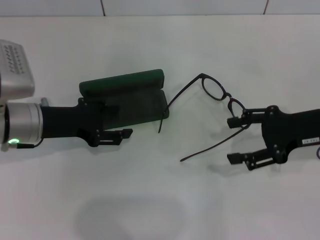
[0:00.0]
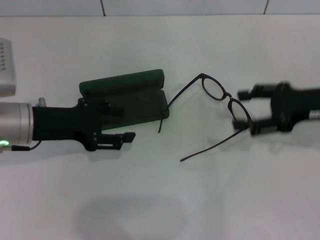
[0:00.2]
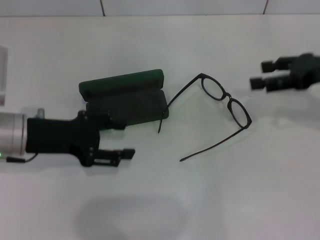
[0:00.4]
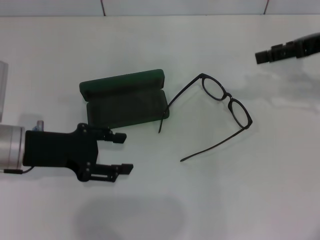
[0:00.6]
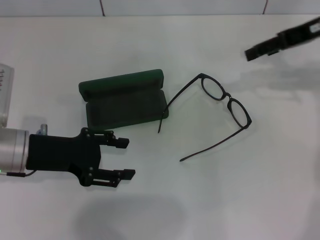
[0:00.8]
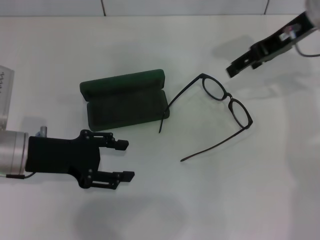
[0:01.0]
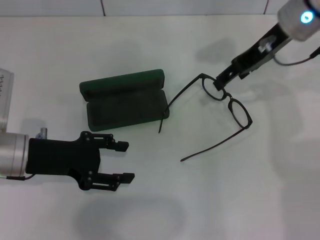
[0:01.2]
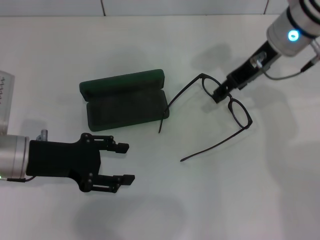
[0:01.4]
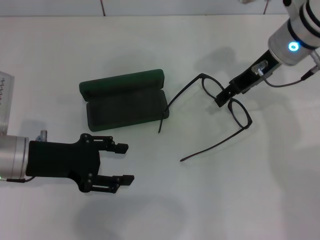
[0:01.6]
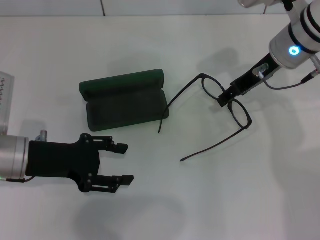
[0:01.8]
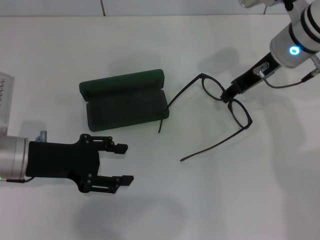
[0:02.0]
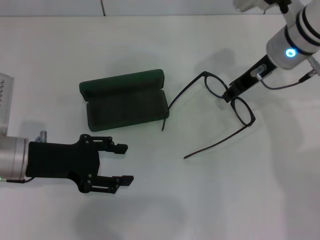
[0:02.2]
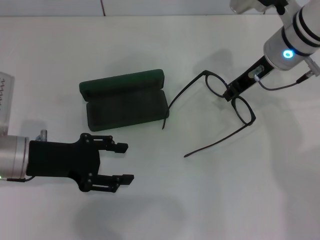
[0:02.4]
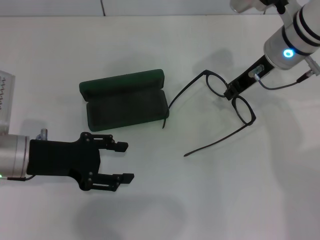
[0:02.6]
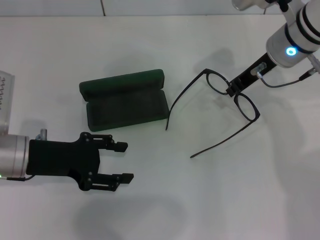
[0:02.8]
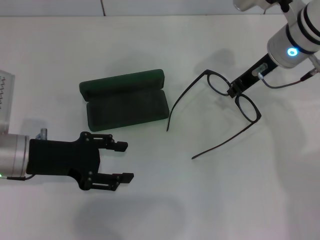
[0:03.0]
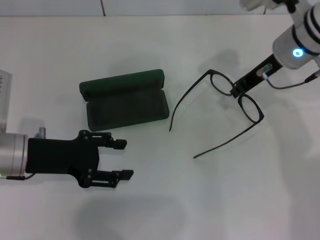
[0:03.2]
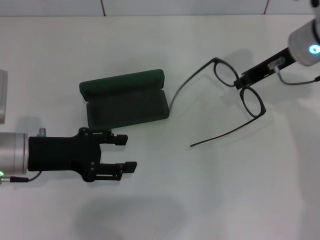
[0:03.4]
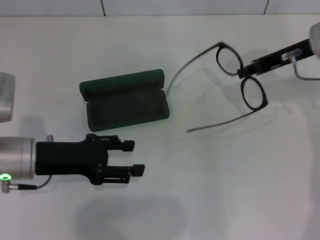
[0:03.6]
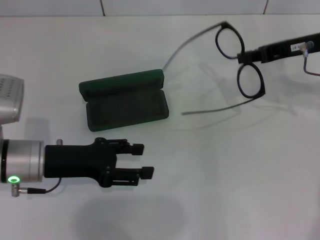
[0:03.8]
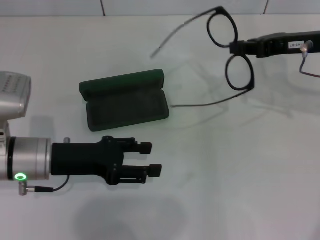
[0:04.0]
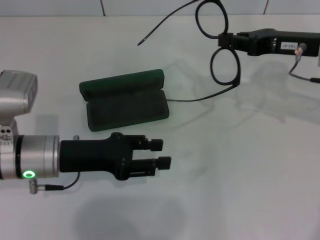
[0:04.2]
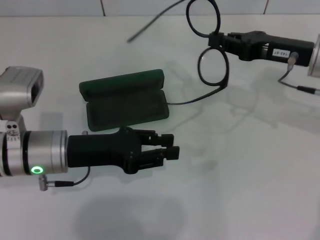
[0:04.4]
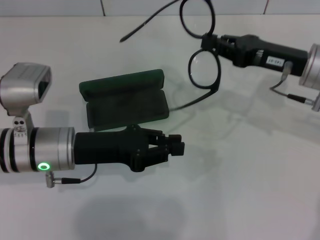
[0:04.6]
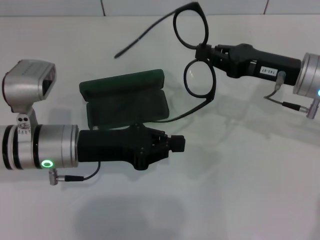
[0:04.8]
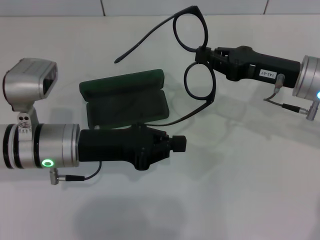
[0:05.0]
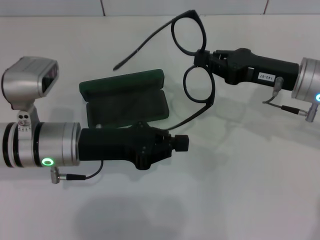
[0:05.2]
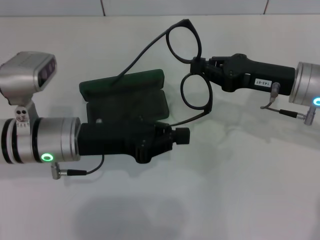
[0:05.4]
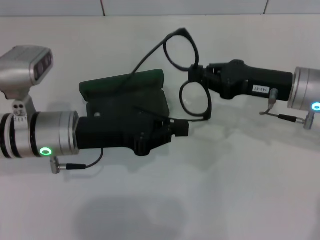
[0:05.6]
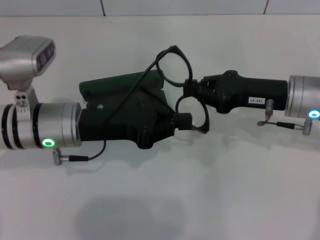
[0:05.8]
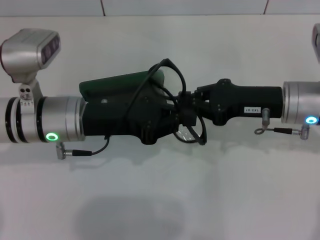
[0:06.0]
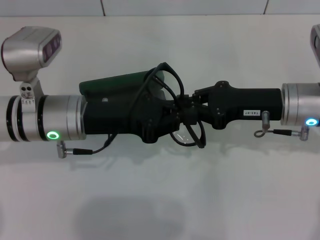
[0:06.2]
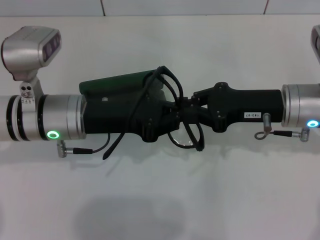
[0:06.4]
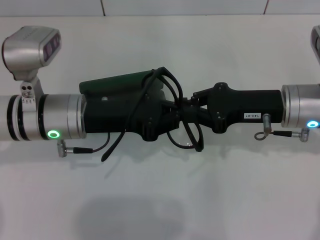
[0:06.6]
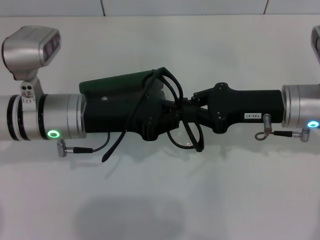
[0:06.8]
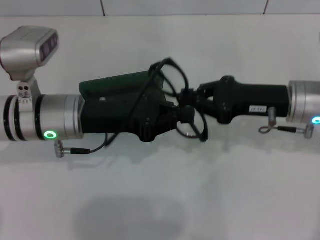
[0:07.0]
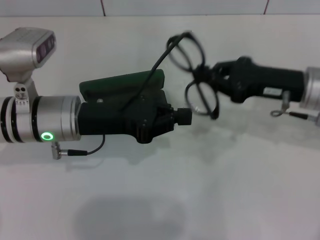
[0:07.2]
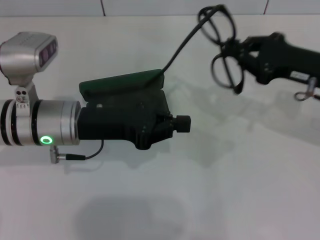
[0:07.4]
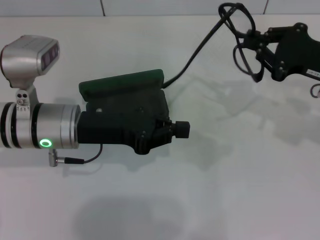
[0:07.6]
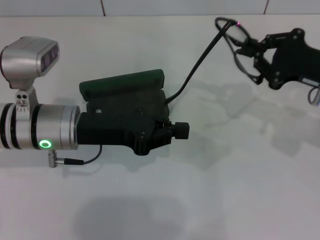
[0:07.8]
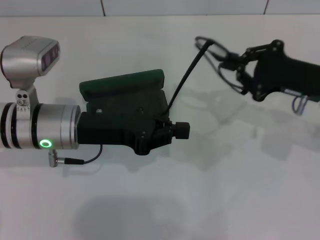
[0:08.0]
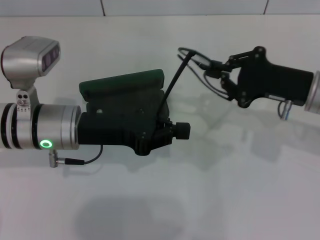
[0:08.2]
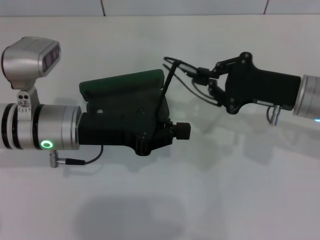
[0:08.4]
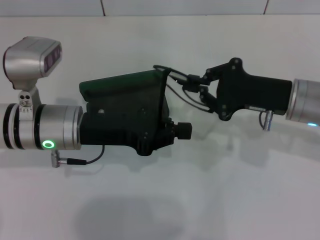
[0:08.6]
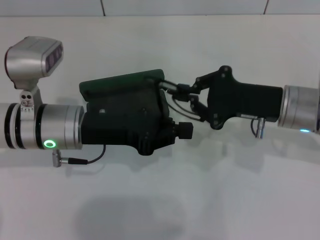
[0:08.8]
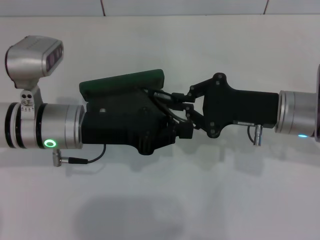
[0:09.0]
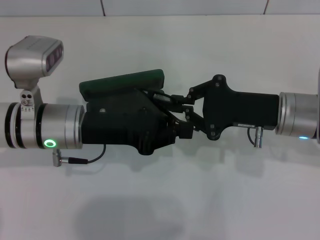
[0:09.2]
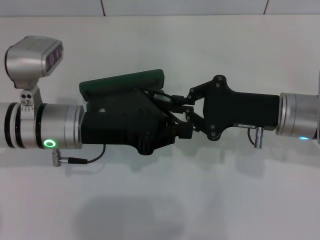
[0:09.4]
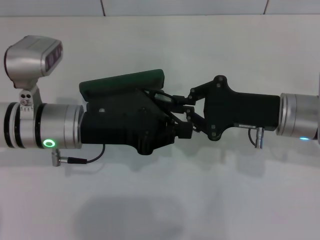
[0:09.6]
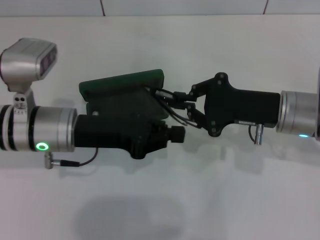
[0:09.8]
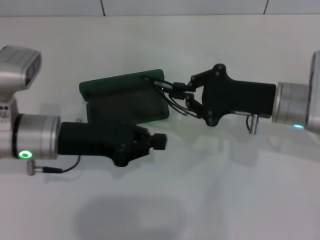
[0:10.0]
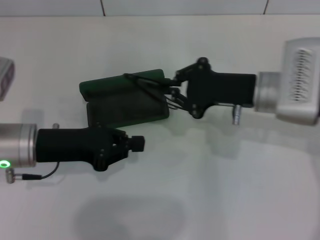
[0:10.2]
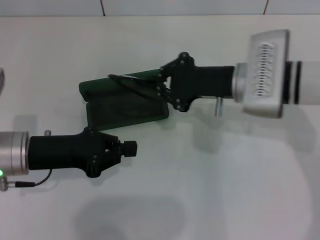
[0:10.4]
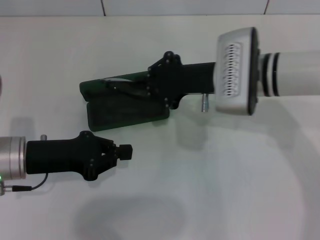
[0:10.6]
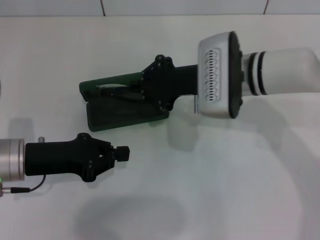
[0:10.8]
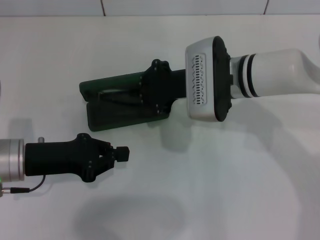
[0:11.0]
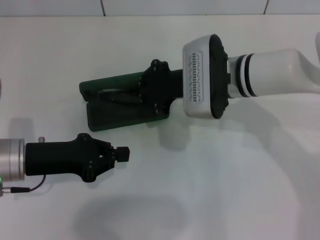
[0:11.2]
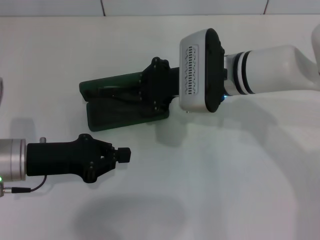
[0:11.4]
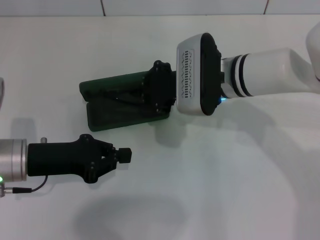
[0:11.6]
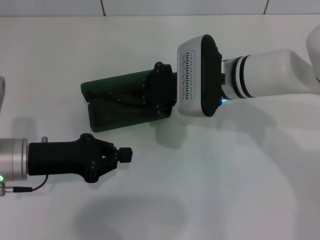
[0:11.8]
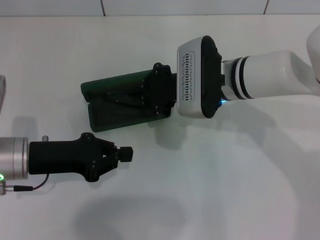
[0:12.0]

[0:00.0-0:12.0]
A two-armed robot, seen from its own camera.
Step, 0:00.0 to 0:02.8: Grab the eyeglass frame with your right hand.
Step, 0:03.0 to 0:09.6: Lift the glasses with your right hand.
0:00.0 to 0:01.6: The right gripper shifts approximately 15 cm forward, to the left and upward.
0:01.6 to 0:03.0: The right gripper closes its fingers.
0:03.0 to 0:04.4: The right gripper goes some 10 cm to the right and backward, while the left gripper travels to the right by about 5 cm.
0:04.4 to 0:06.0: The right gripper shifts by roughly 5 cm. The left gripper shifts by roughly 5 cm, and closes its fingers.
0:06.0 to 0:07.6: The right gripper travels to the right by roughly 10 cm.
0:07.6 to 0:09.0: The right gripper heads to the left, covering roughly 10 cm.
0:09.0 to 0:10.4: The two grippers go approximately 5 cm to the left.
0:10.4 to 0:12.0: The right gripper travels to the left by some 5 cm.

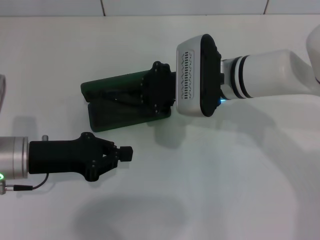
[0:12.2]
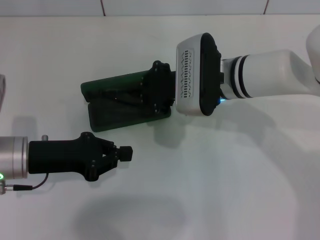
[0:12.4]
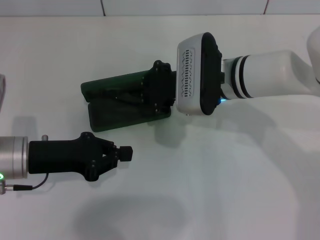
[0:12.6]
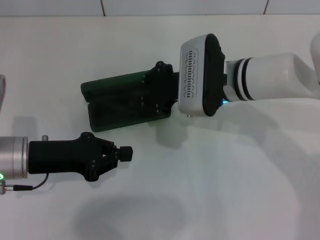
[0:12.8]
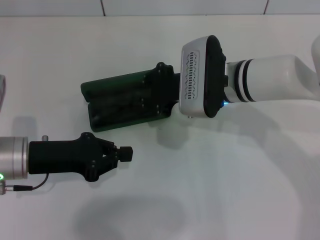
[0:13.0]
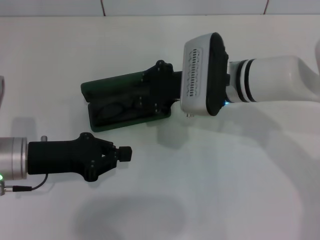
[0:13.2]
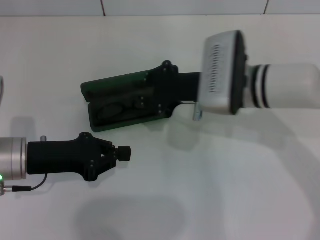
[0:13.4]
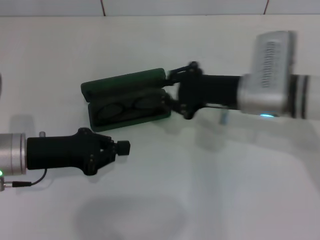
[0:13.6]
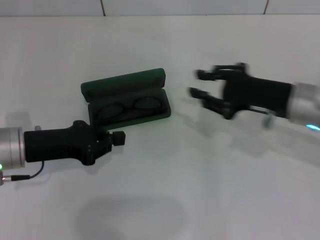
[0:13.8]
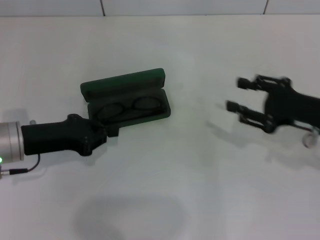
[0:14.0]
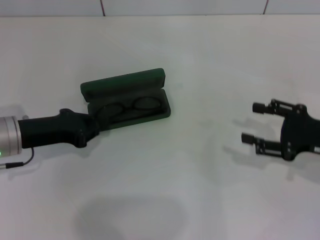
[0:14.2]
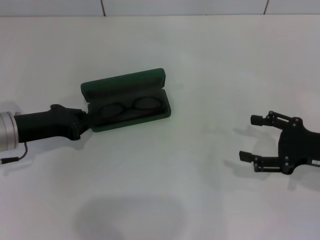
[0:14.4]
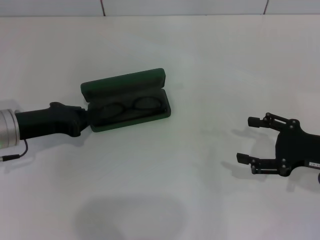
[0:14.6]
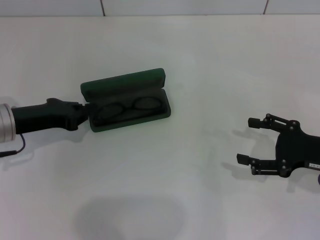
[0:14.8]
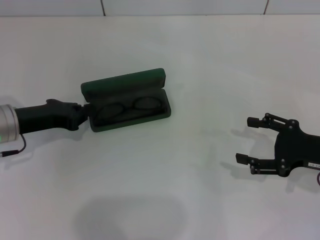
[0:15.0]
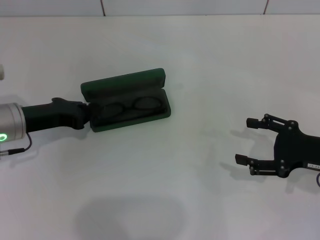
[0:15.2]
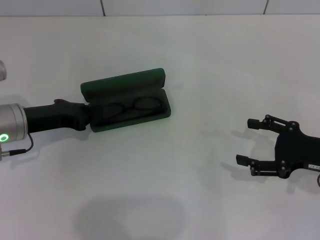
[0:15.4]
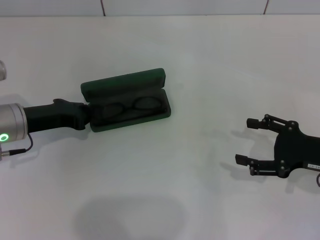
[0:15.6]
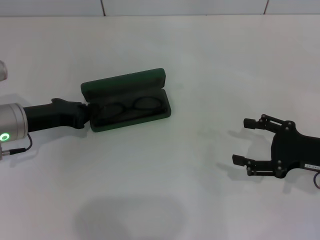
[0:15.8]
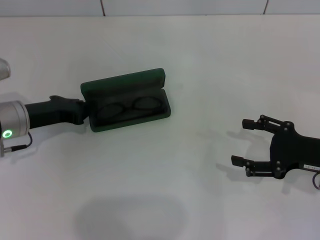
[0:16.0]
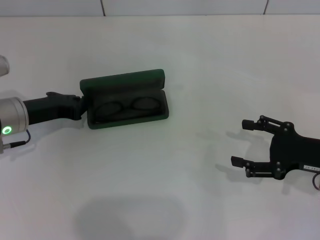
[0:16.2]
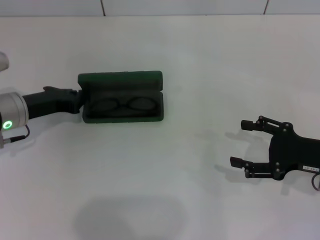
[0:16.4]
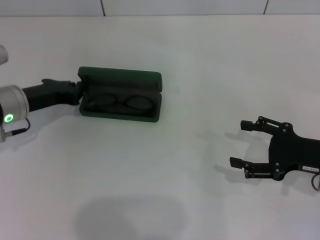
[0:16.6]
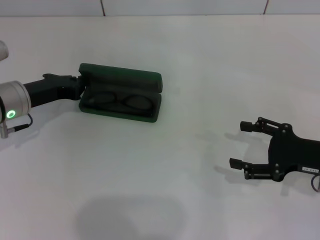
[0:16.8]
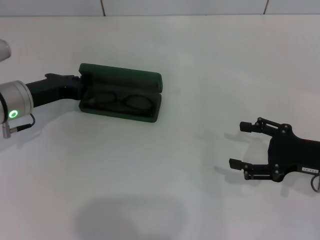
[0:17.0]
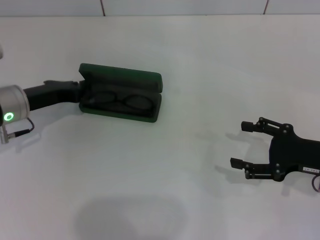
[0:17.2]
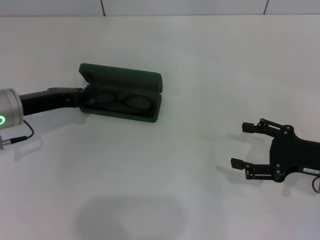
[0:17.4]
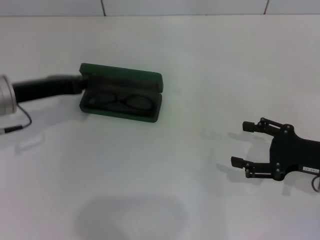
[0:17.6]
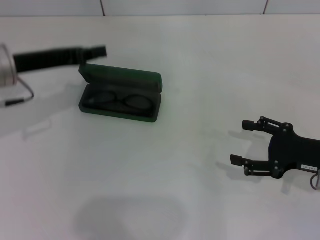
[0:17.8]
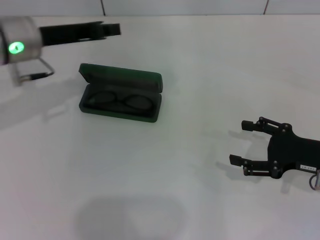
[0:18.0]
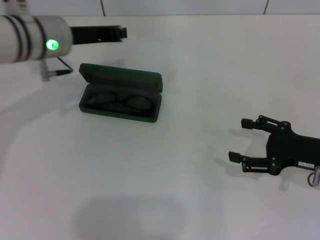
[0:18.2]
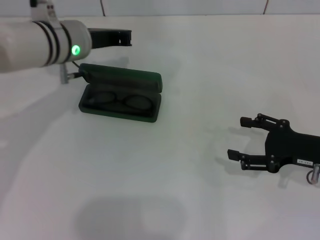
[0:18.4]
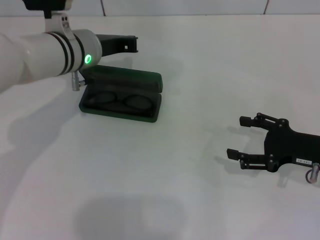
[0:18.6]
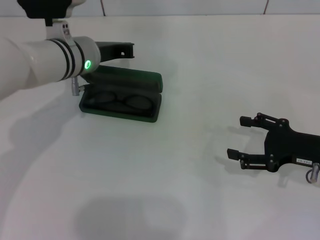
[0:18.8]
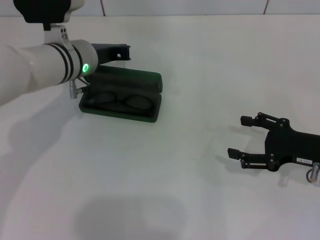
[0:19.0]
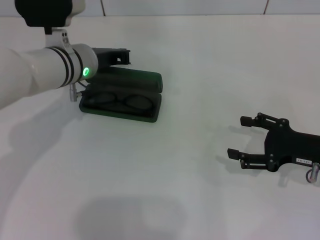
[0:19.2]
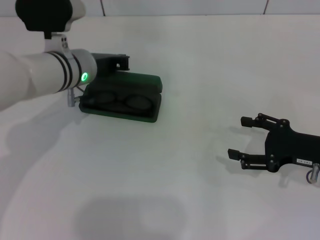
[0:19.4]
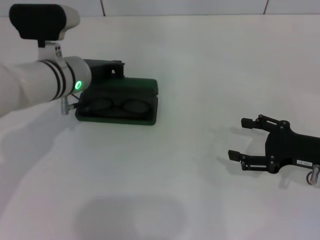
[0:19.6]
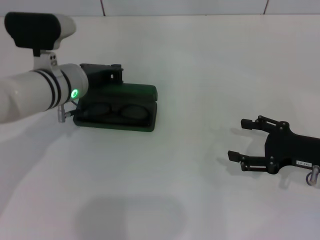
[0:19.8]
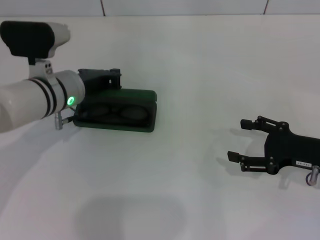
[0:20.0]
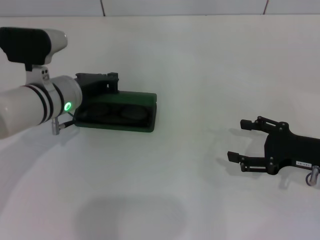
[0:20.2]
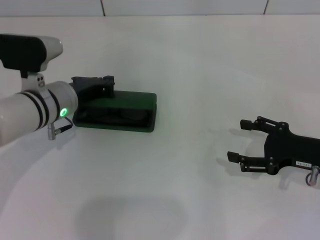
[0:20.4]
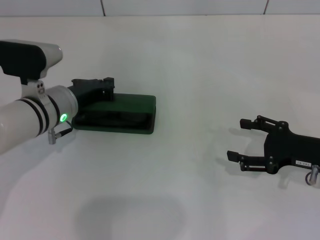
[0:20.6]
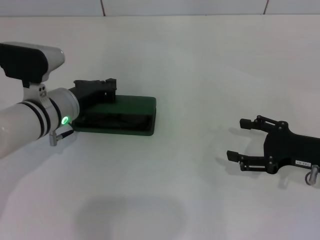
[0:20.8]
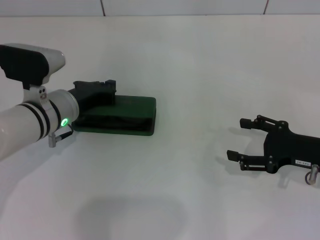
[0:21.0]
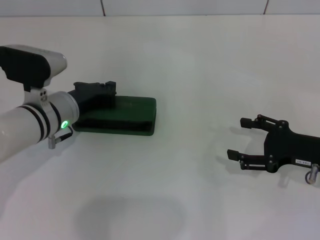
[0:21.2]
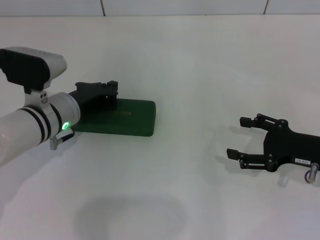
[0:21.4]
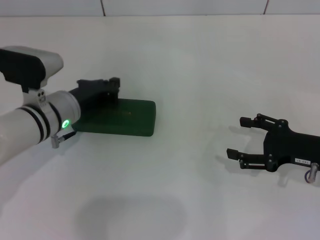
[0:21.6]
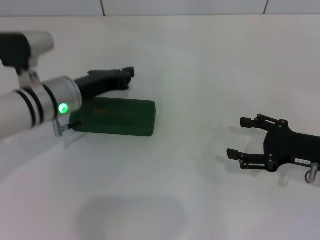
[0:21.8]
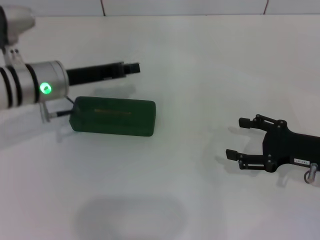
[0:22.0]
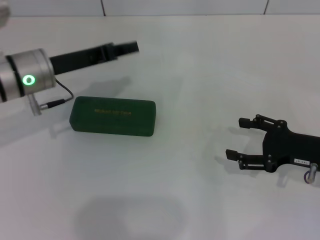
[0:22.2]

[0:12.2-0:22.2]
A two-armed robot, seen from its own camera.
Step, 0:13.2 to 0:21.2: Close the glasses case with your left hand.
0:12.2 to 0:13.6: The right gripper moves to the right, about 5 cm.
0:13.6 to 0:15.0: The left gripper moves roughly 5 cm. Meanwhile the right gripper is displaced to the right and backward by roughly 15 cm, and opens.
0:15.0 to 0:16.4: The grippers make only small movements.
0:16.4 to 0:18.0: The left gripper travels upward and to the right by approximately 10 cm.
0:18.0 to 0:19.4: The left gripper goes some 10 cm downward and to the right.
0:19.4 to 0:20.8: The left gripper shifts roughly 5 cm backward.
0:20.8 to 0:22.2: The left gripper goes roughly 5 cm upward.
